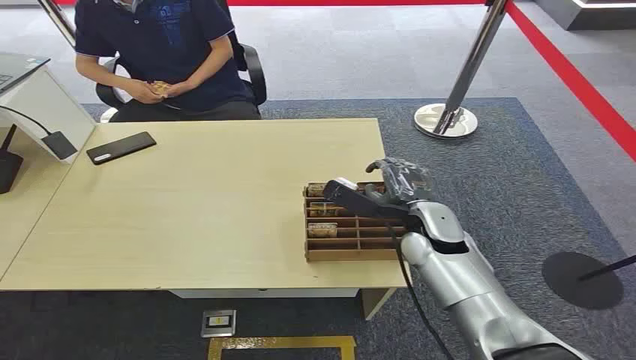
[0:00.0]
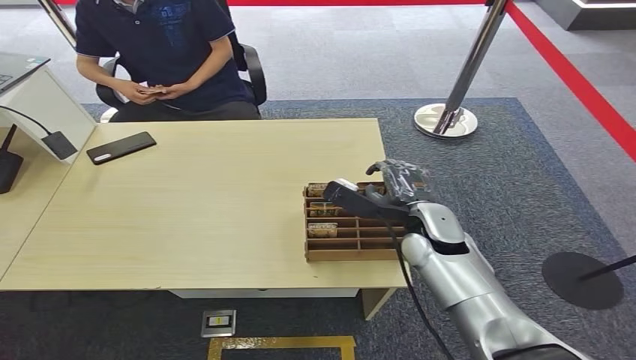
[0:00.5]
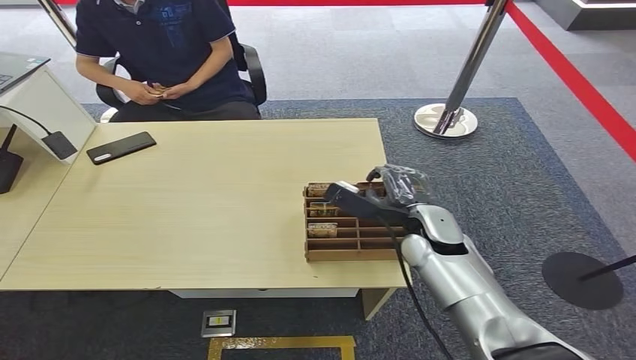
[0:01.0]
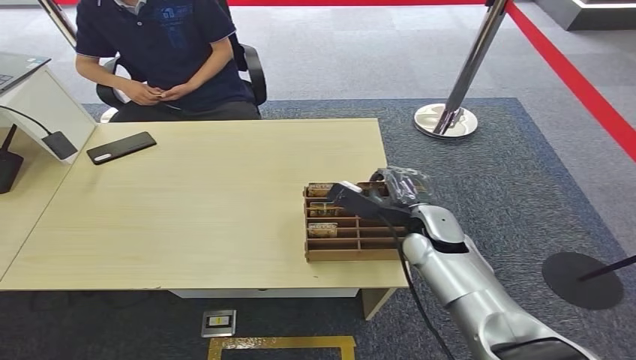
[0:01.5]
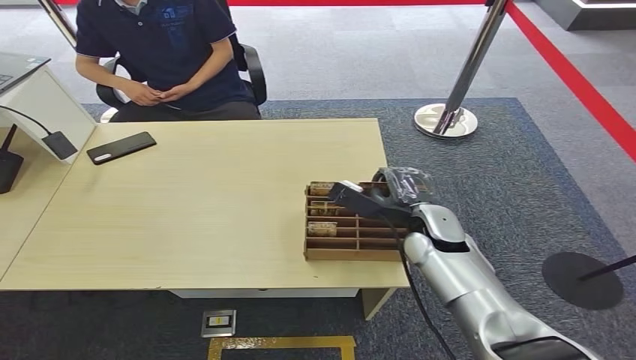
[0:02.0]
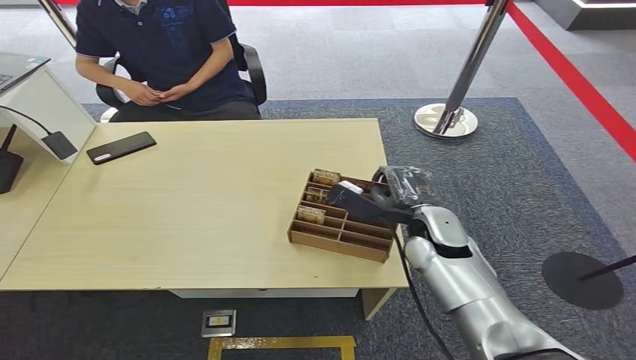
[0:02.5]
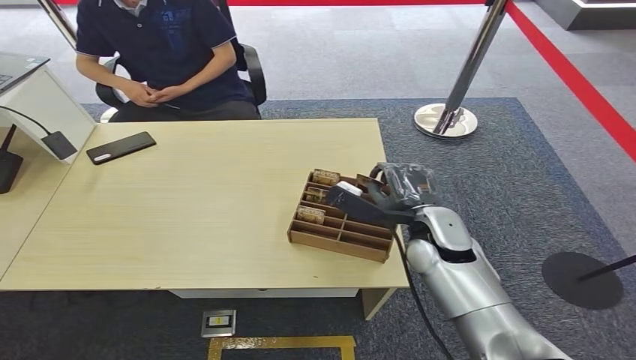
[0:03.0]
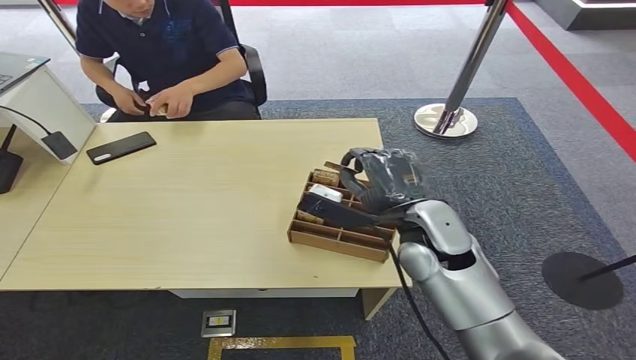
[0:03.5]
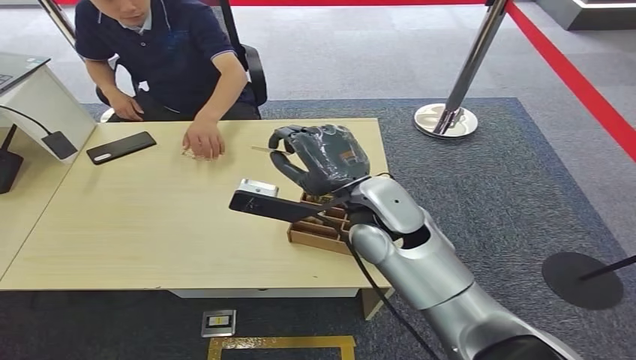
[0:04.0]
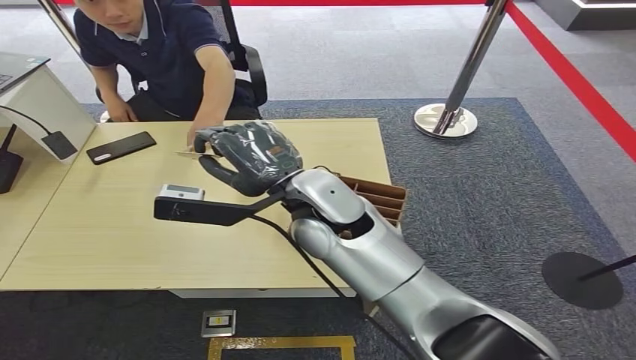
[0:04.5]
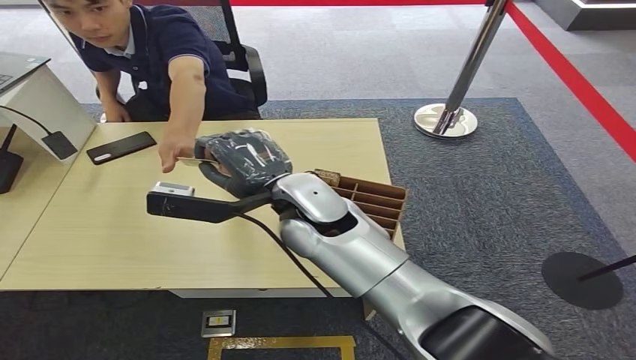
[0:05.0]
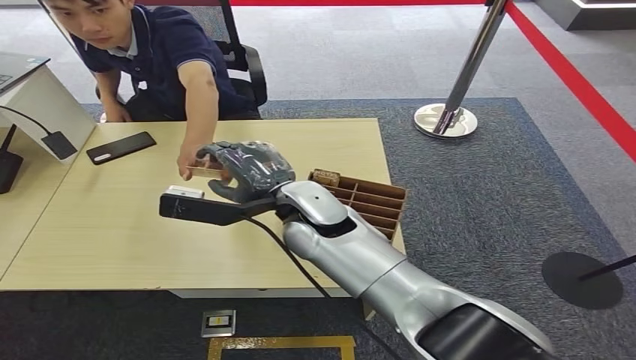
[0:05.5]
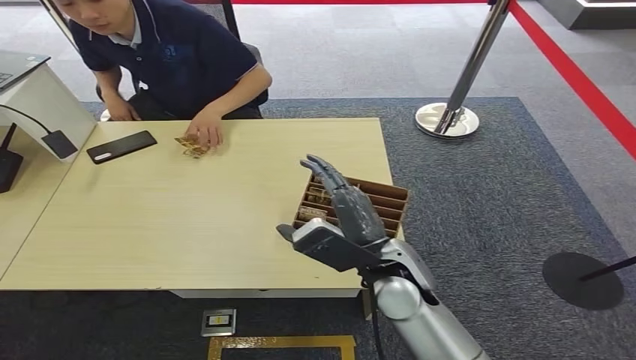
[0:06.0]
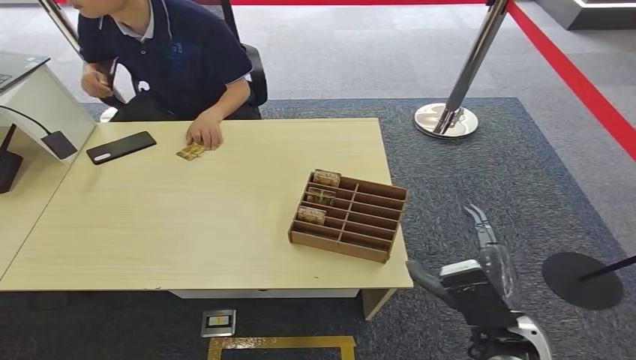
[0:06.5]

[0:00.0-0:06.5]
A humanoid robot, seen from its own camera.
Step, 0:00.0 to 0:04.0: Pick up the key card from the card box.
Step, 0:05.0 to 0:06.5: Hand the key card to the target.
0:04.5 to 0:06.5: The right hand travels backward, to the right and downward by approximately 30 cm.
